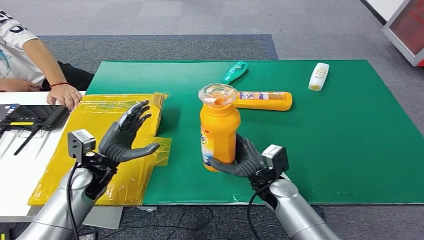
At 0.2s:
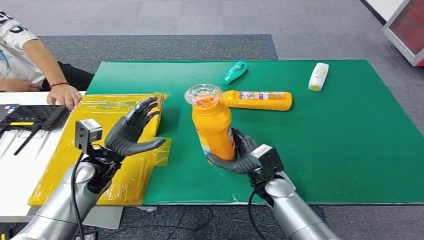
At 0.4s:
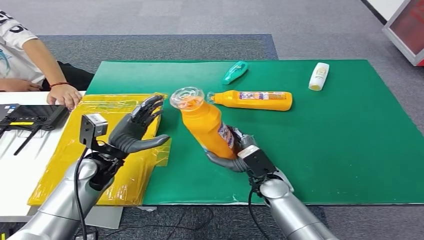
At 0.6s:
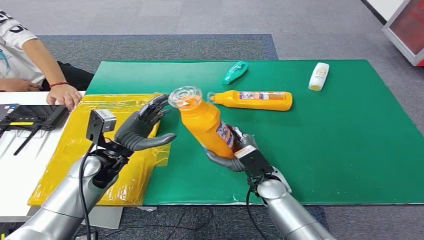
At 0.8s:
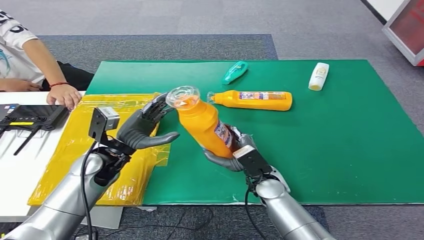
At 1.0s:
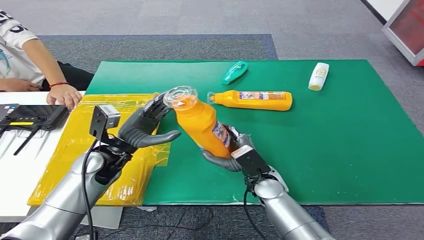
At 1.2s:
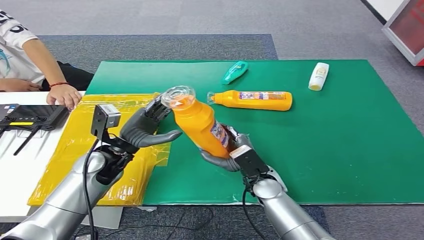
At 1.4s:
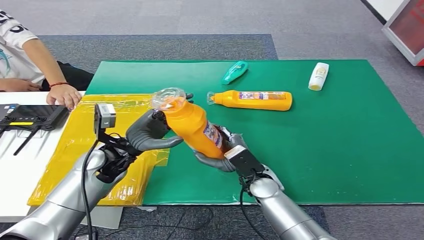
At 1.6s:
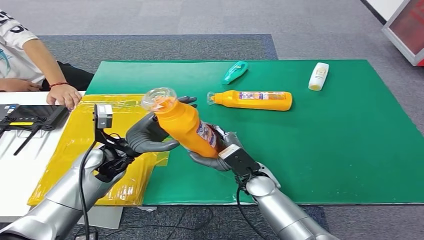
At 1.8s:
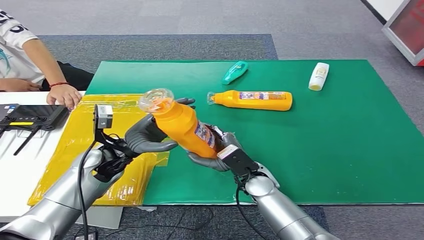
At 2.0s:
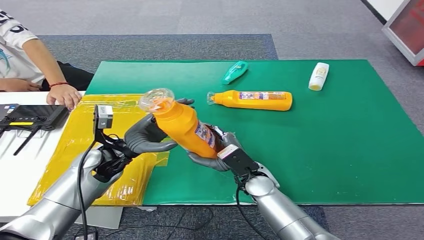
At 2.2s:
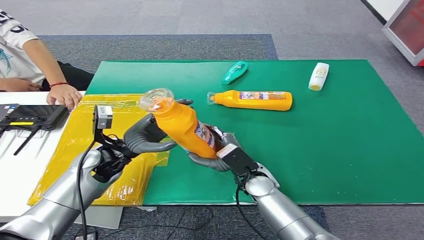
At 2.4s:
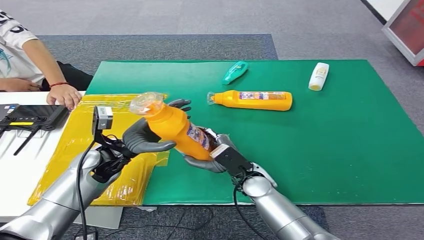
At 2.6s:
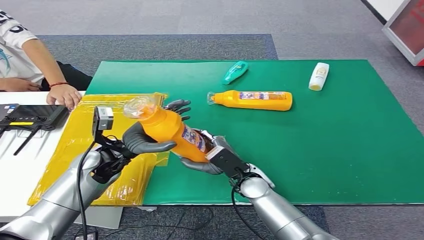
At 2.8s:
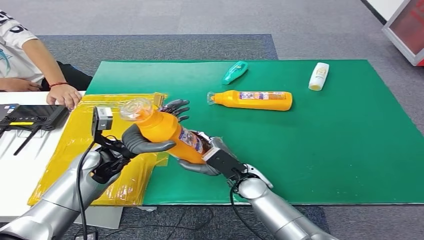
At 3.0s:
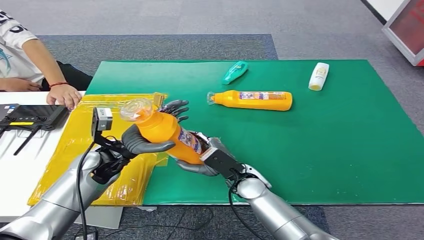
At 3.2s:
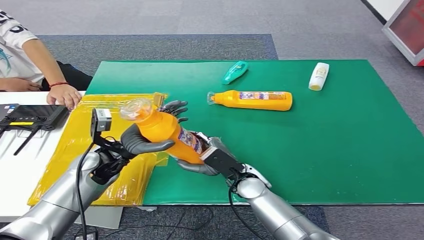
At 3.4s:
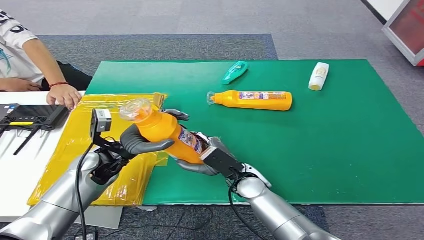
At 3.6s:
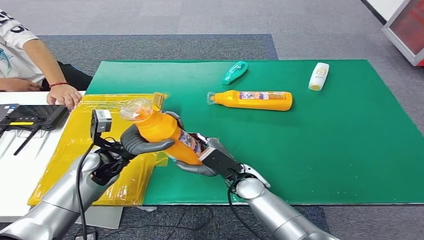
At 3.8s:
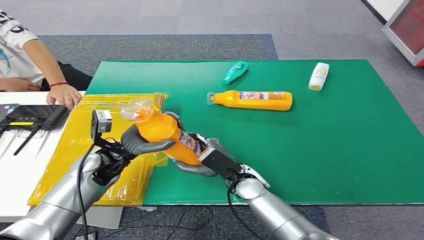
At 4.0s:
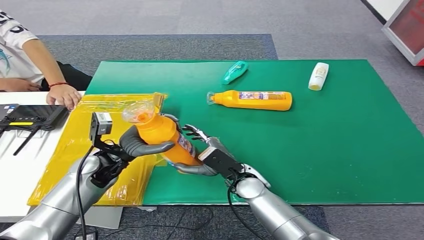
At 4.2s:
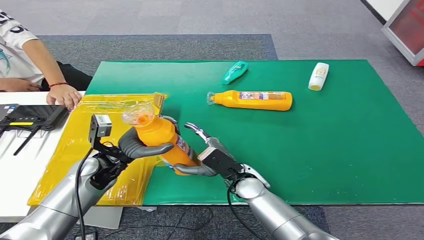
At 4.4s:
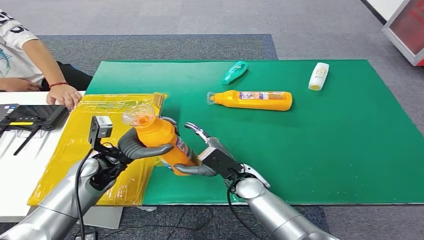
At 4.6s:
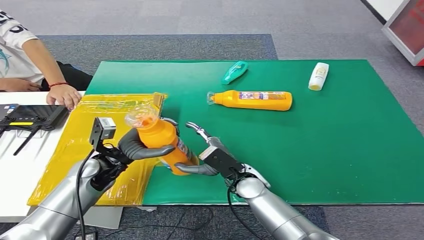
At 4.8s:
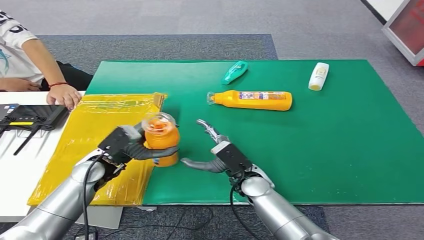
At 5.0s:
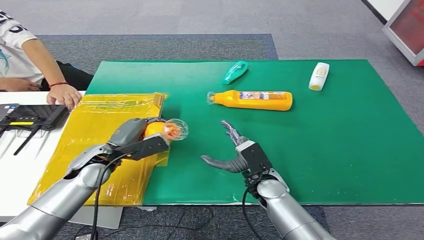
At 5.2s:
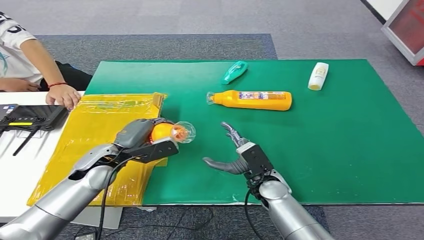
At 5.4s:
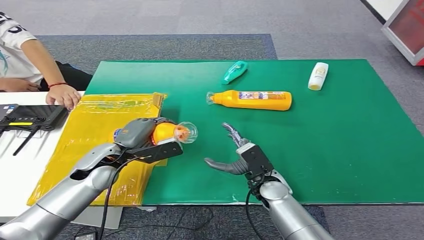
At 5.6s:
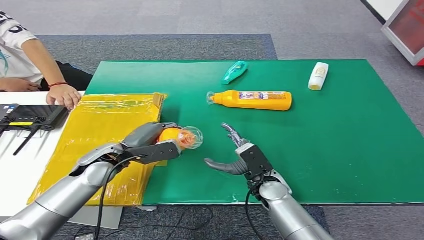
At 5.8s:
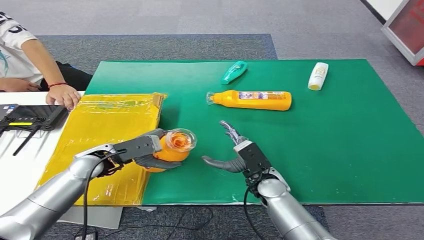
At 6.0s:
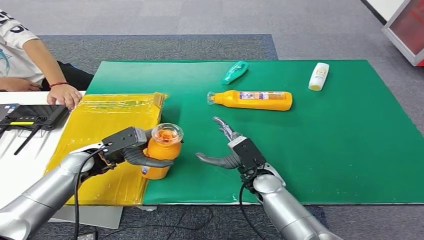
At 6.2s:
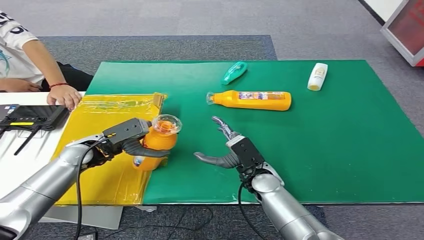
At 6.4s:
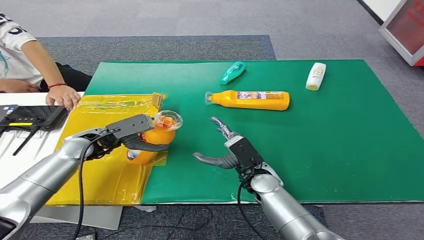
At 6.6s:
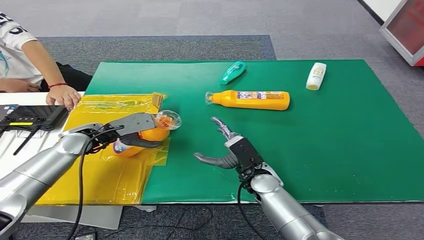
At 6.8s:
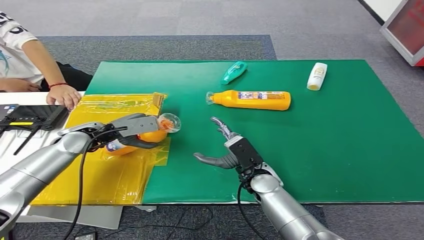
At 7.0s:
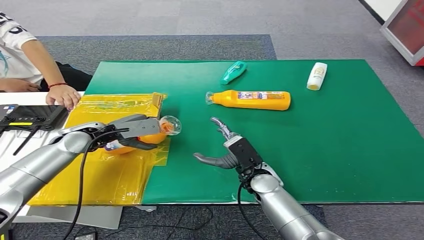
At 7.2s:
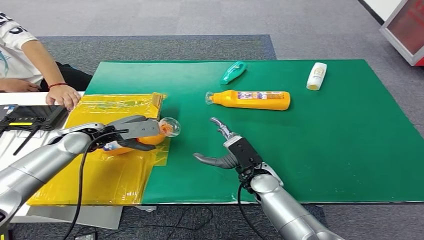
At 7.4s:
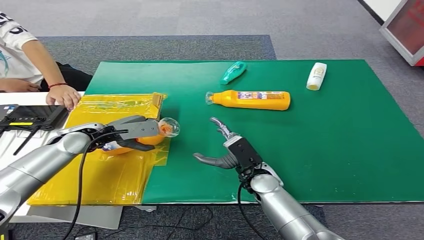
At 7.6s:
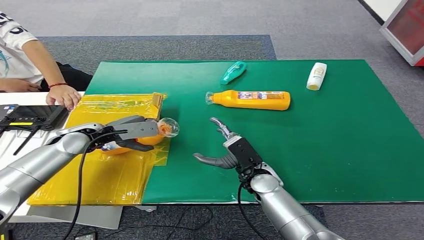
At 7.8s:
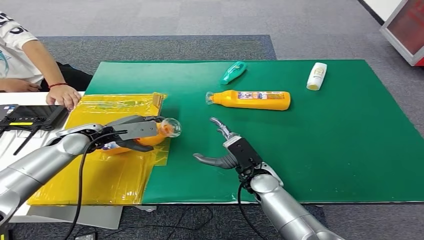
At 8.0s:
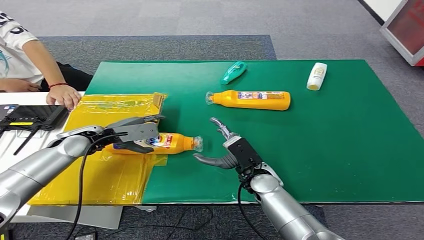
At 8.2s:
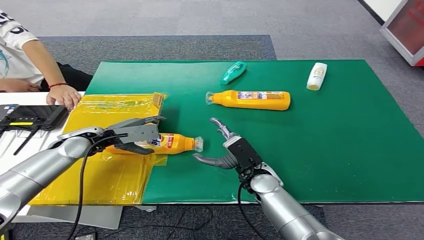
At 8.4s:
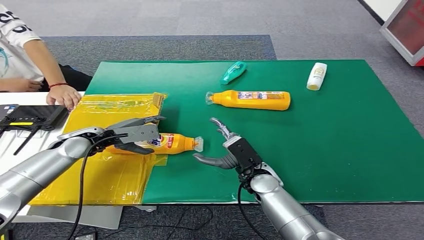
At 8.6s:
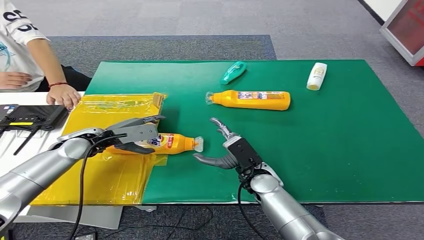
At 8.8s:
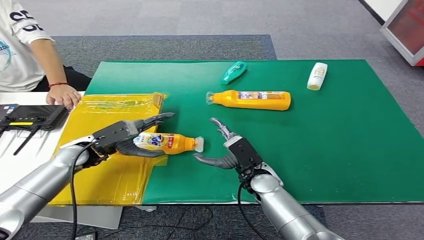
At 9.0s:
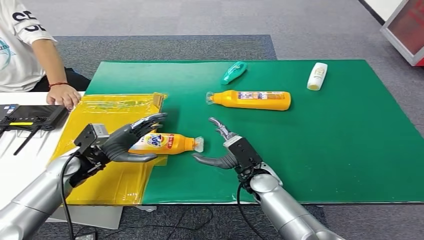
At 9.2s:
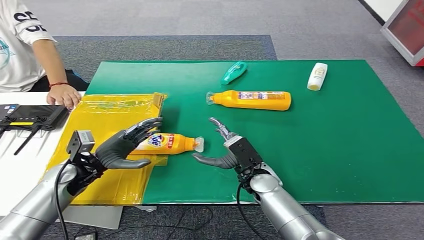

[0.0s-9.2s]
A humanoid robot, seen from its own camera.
Step, 0.2s to 9.2s: Turn the bottle to the front side.
0.0s to 1.6s: The left hand shifts by some 5 cm.
1.6s to 4.6s: The hands move only a little.
4.6s to 6.2s: The left hand moves some 5 cm.
7.6s to 9.2s: The left hand heads backward and downward, covering roughly 10 cm.

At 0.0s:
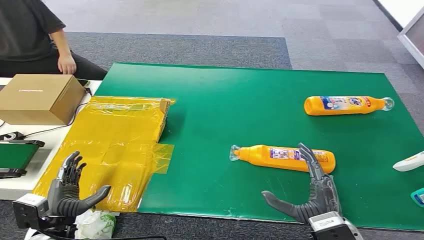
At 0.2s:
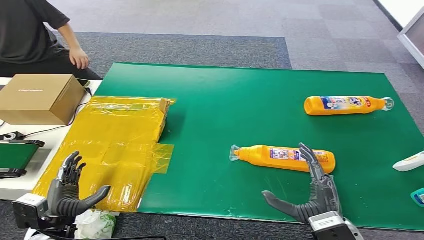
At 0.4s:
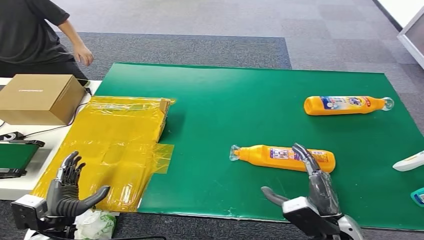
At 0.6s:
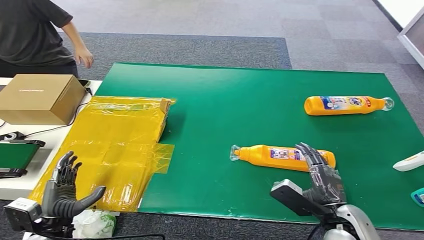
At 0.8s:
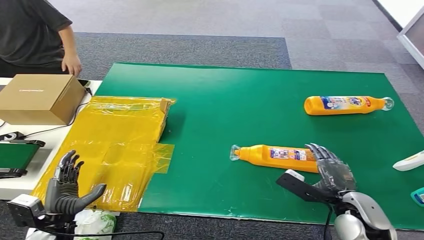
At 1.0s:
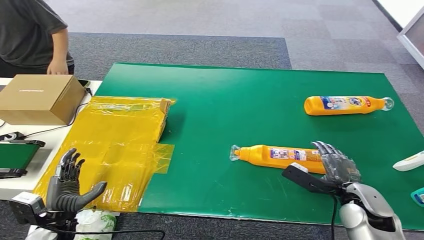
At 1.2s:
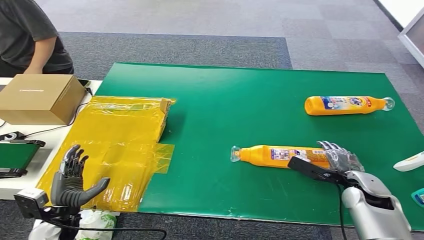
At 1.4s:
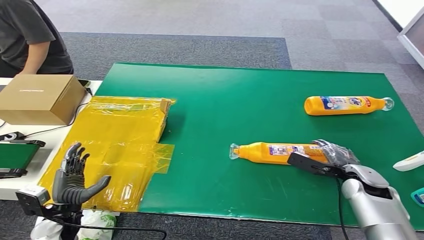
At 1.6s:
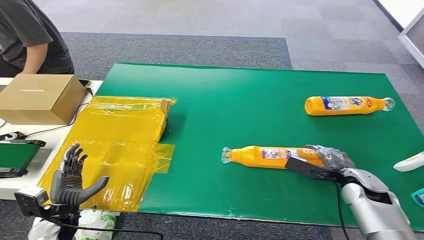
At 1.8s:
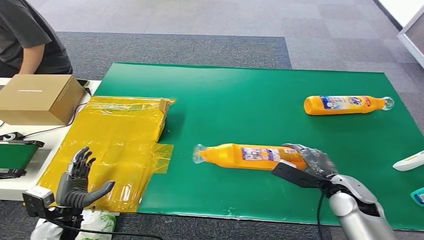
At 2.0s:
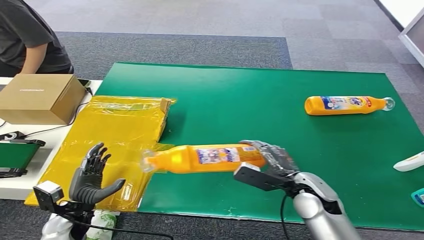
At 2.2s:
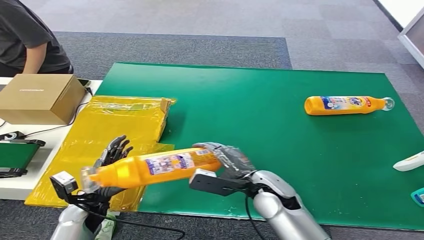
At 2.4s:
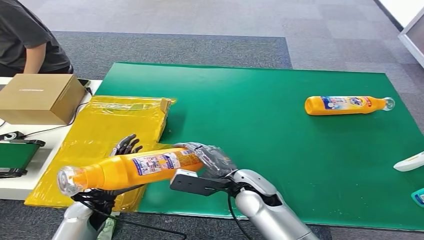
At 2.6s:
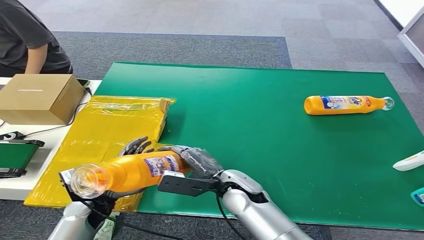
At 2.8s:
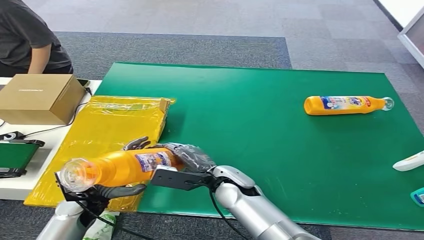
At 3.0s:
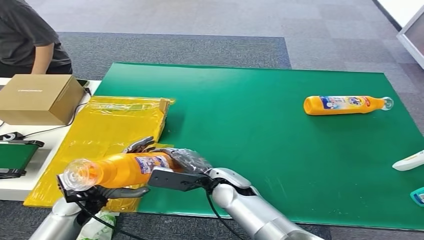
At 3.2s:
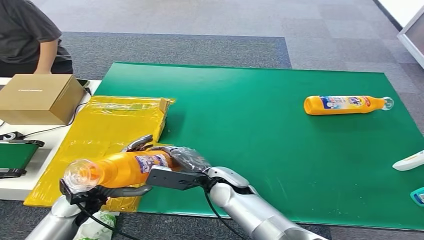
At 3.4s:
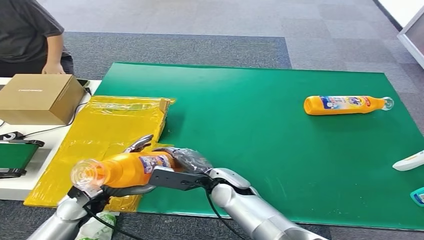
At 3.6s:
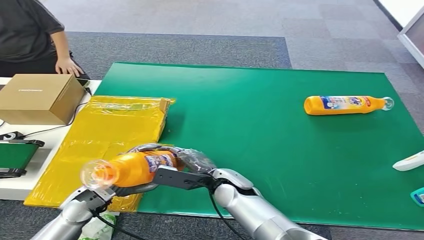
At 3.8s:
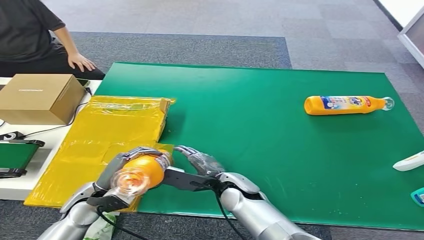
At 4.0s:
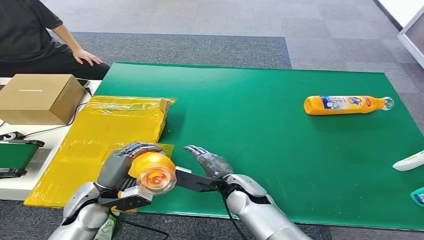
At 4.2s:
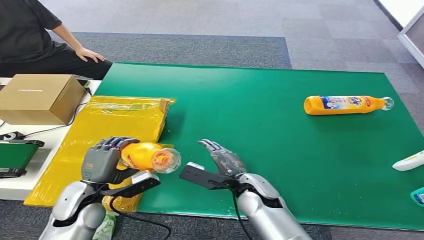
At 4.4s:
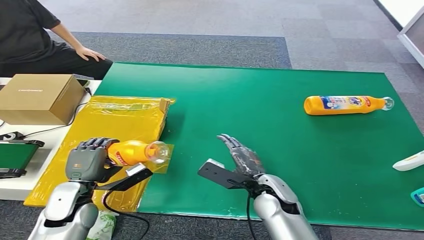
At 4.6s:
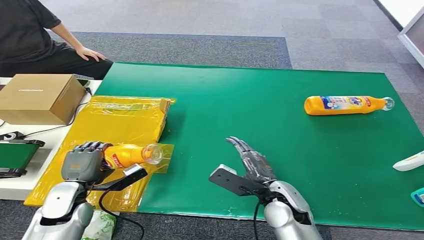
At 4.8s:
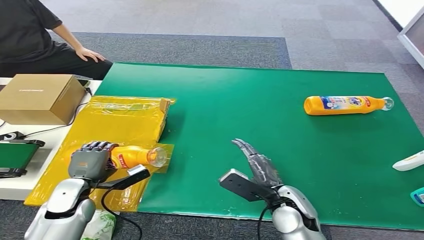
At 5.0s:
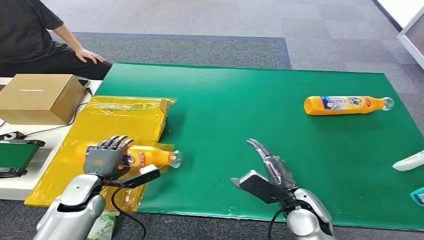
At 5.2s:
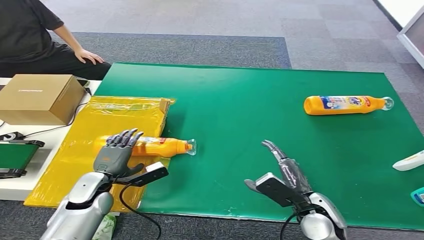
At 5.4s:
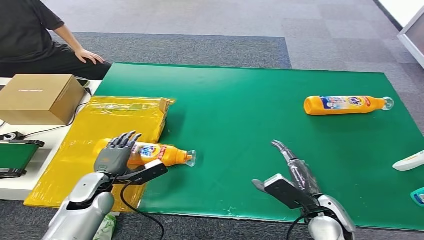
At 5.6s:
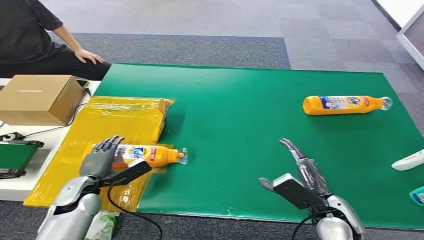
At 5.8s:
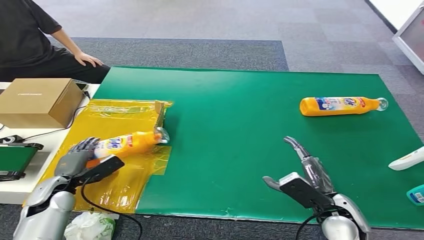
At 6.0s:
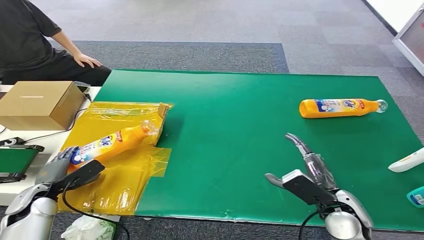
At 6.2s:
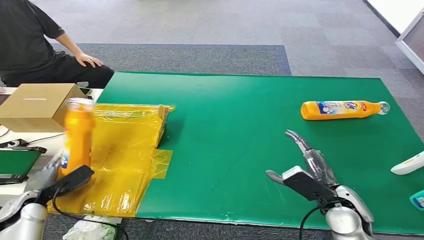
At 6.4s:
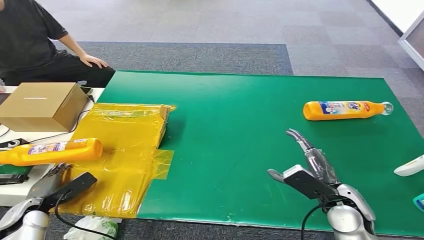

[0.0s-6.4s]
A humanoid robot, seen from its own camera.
Step, 0.0s to 2.0s: Pick up the bottle from the table.
Step, 2.2s to 6.4s: Turn the bottle to the front side.
3.2s to 4.8s: The right hand heads to the right, covering approximately 15 cm.

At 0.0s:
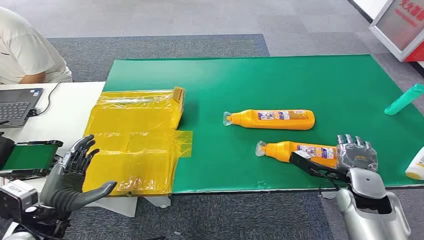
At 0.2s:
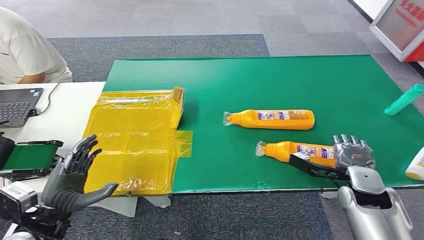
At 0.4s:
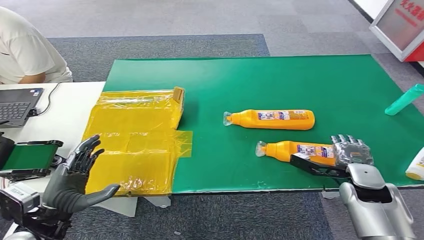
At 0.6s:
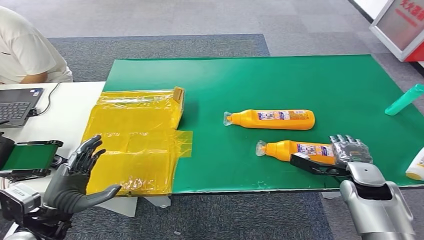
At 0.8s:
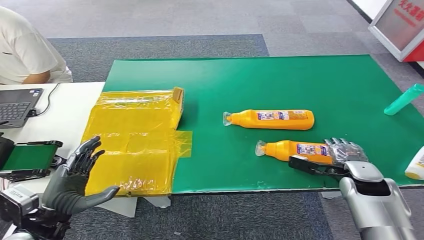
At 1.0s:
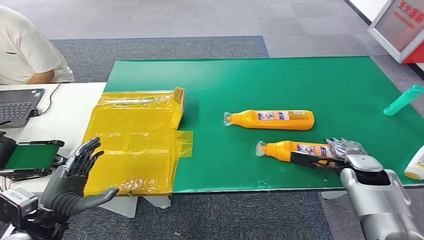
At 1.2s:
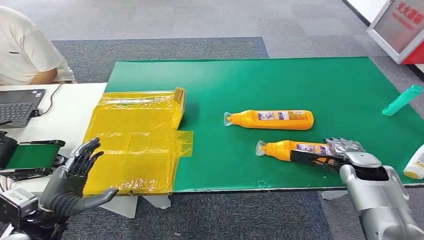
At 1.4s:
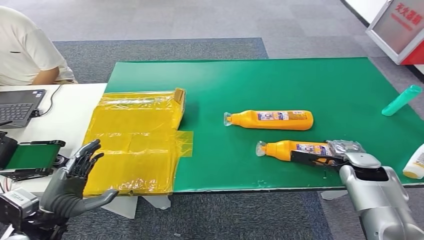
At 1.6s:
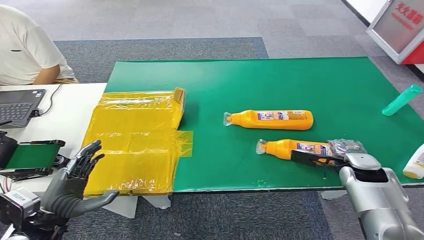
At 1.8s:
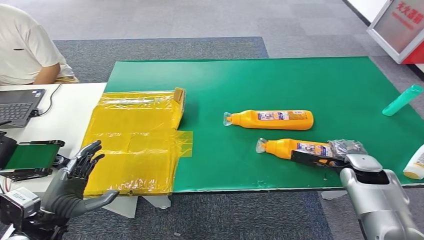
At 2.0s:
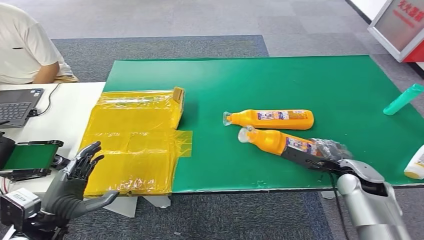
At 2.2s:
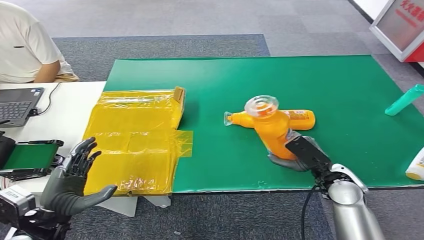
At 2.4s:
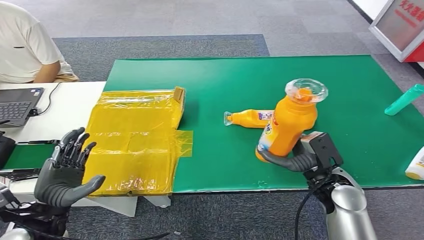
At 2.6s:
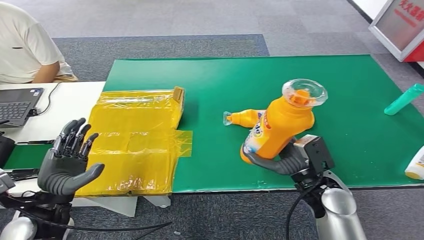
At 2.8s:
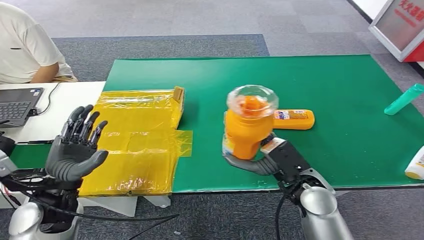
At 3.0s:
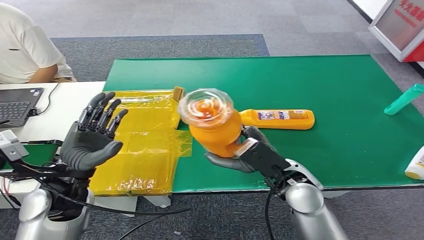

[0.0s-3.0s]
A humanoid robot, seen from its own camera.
Step, 0.0s to 2.8s: Pick up the bottle from the table.
